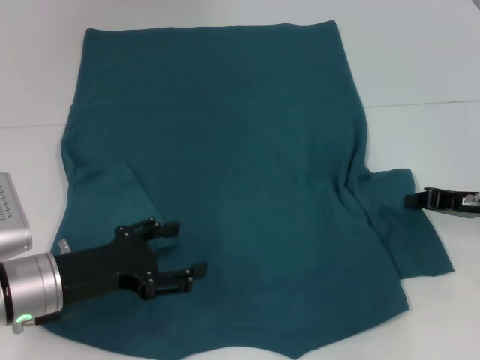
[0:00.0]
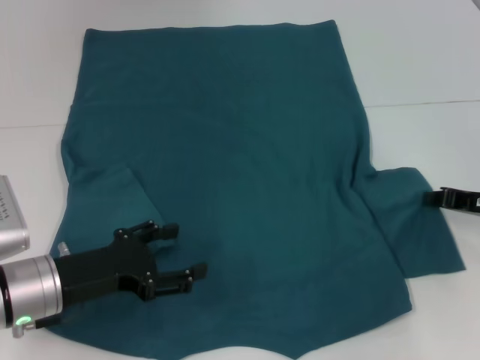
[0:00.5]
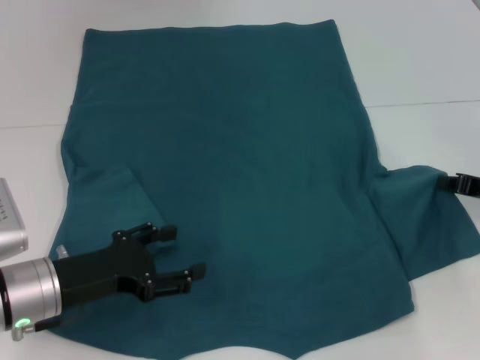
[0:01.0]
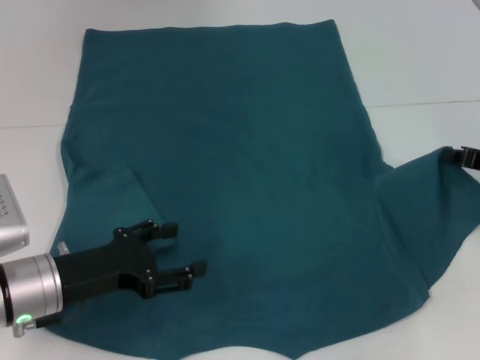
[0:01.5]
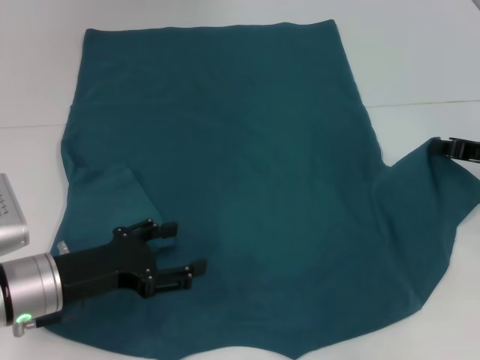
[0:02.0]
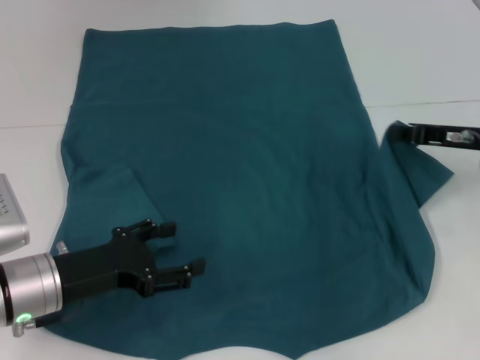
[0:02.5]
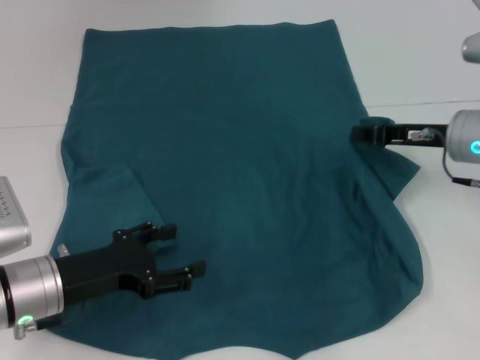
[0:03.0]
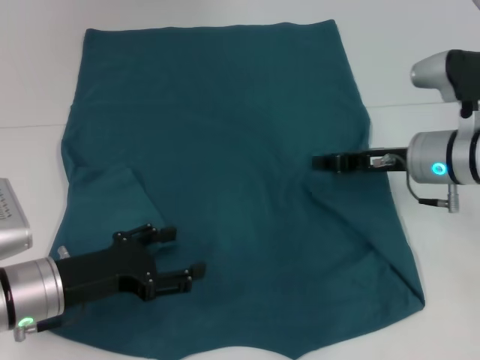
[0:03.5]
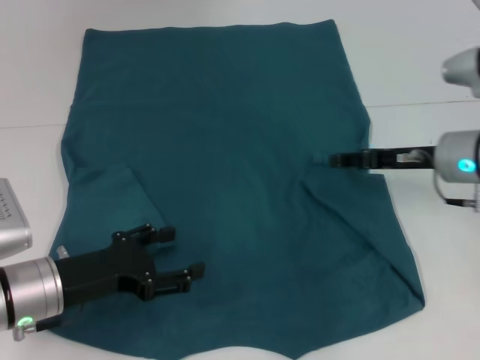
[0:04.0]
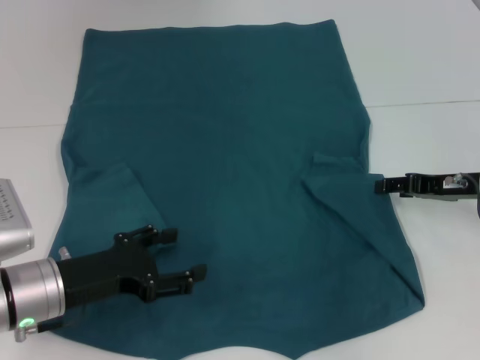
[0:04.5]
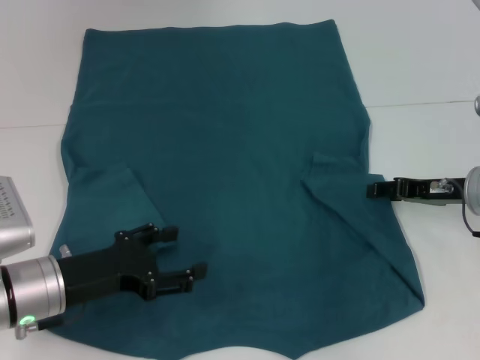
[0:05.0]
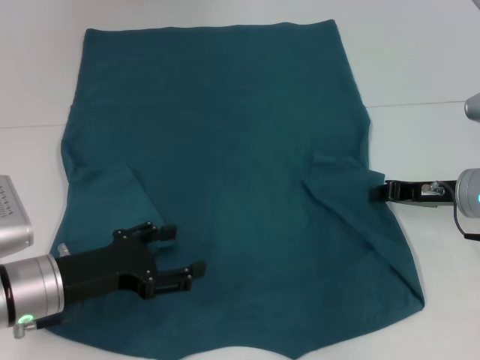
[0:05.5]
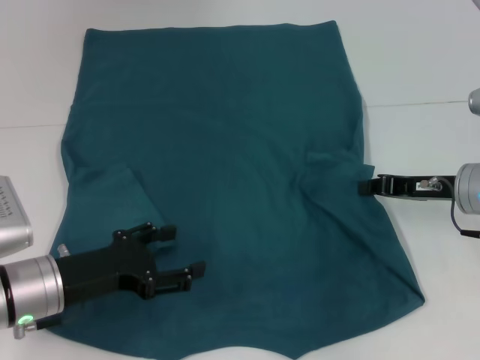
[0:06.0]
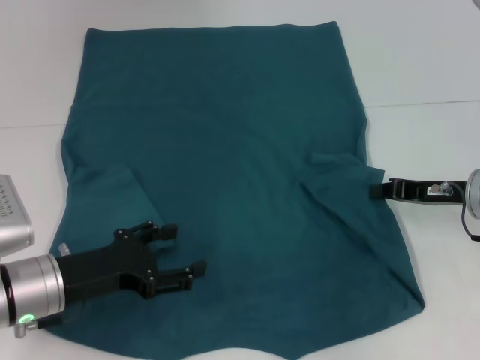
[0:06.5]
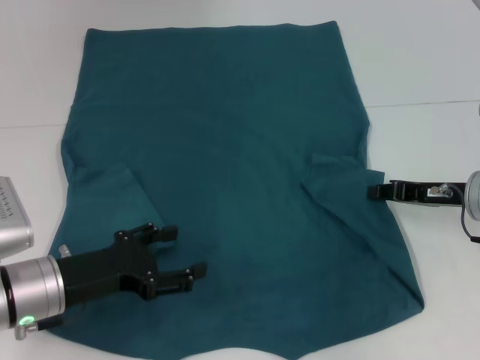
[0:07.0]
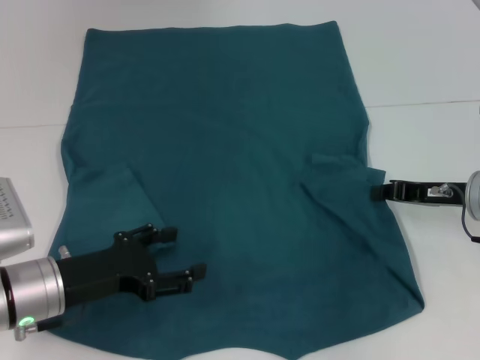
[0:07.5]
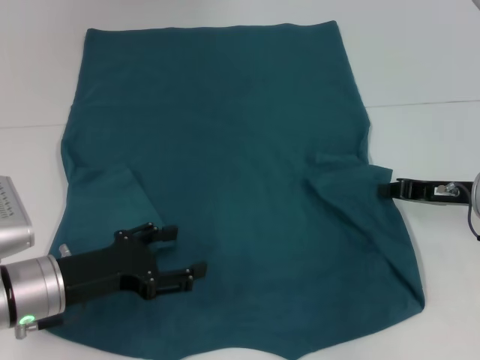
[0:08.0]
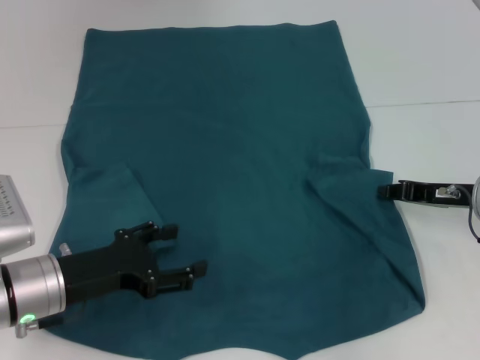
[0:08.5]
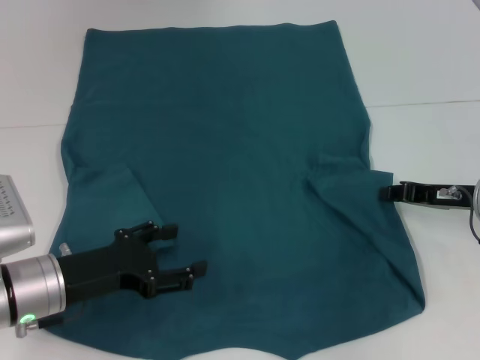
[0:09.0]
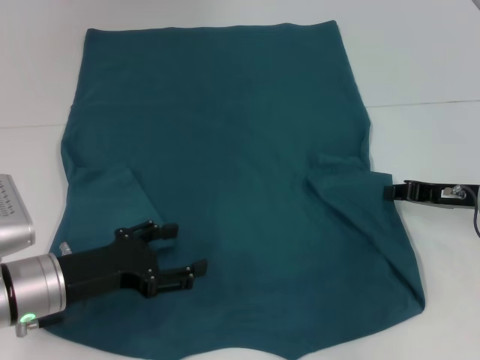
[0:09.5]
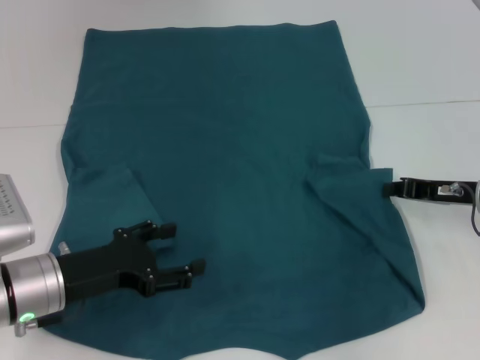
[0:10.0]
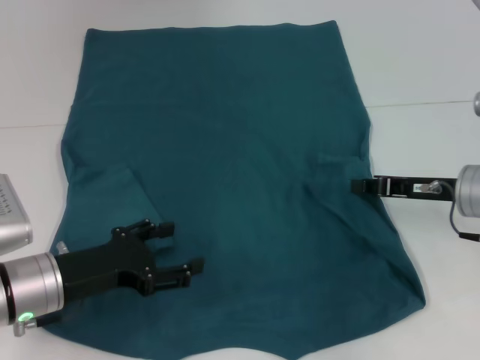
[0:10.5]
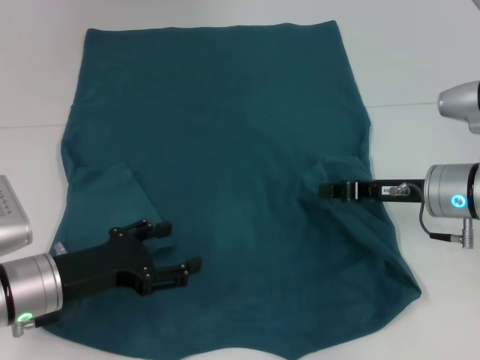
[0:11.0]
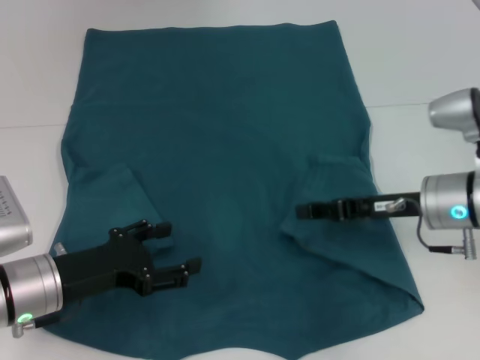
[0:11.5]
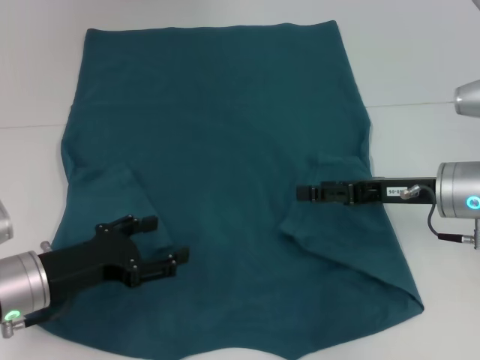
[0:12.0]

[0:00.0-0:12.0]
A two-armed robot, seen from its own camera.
Step, 0.0 to 11.5 s: Fold the bottom right sleeve to the right.
0.0 to 2.0 s: There are only small adjustments of the grippers.
2.0 to 4.0 s: The right gripper shifts some 10 cm to the left, and opens up.
4.0 to 6.0 s: The right gripper closes its fingers.
6.0 to 8.0 s: The grippers move only a little.
8.0 to 10.0 s: Both grippers stay about where they are.
10.0 to 12.0 s: The right gripper moves to the left, about 5 cm, and opens its fingers.

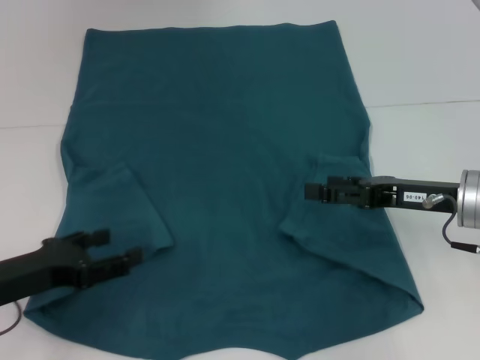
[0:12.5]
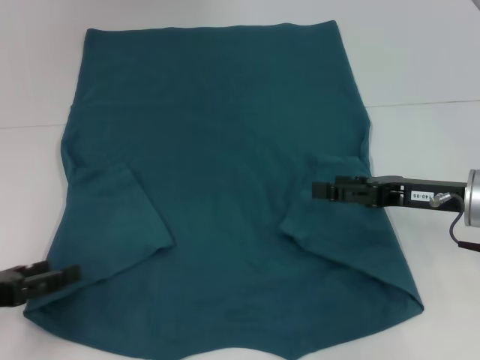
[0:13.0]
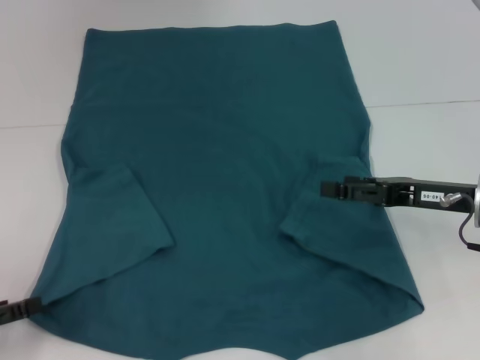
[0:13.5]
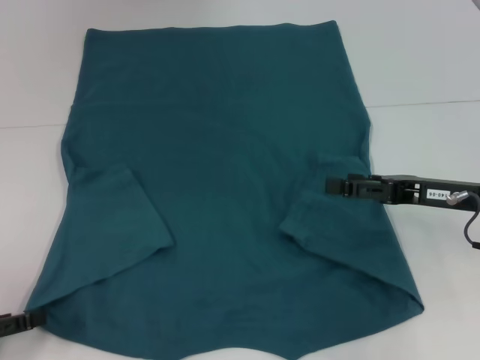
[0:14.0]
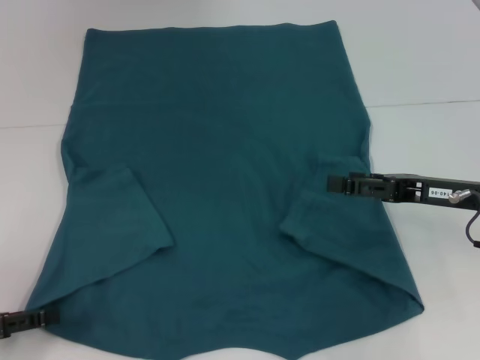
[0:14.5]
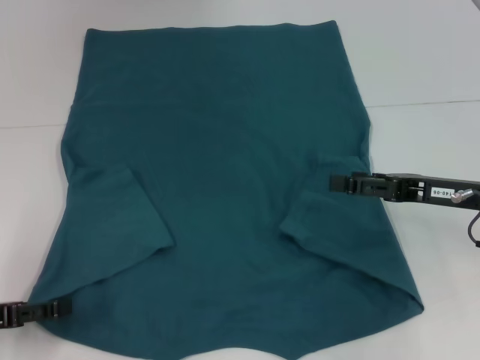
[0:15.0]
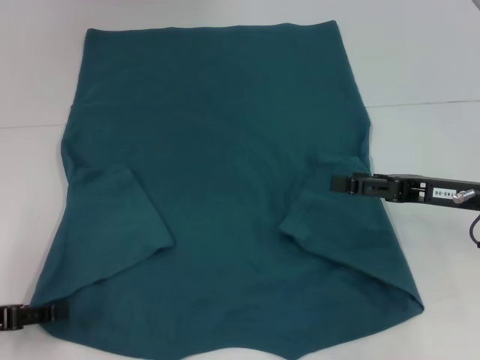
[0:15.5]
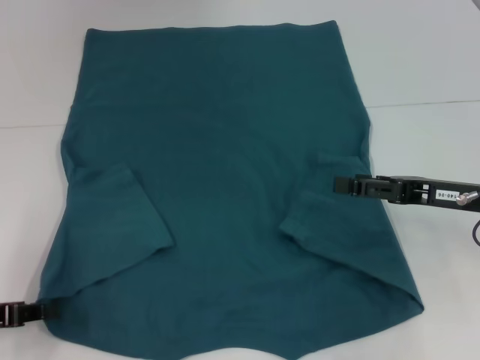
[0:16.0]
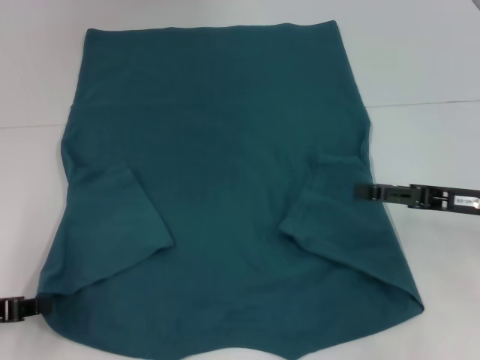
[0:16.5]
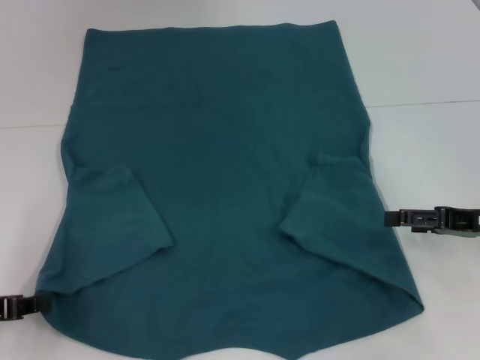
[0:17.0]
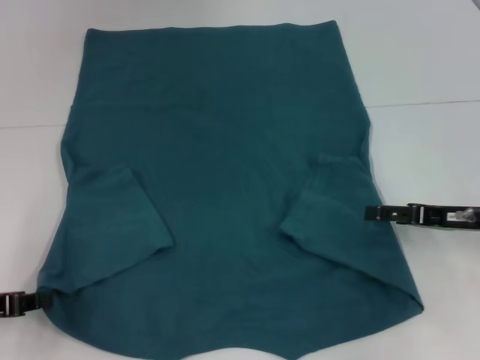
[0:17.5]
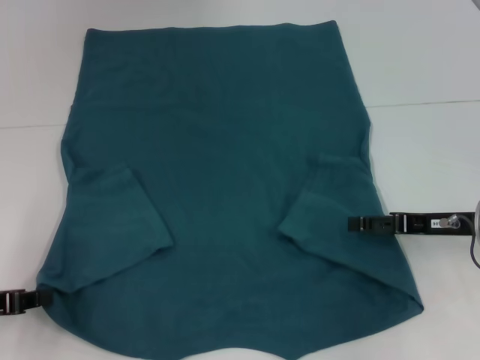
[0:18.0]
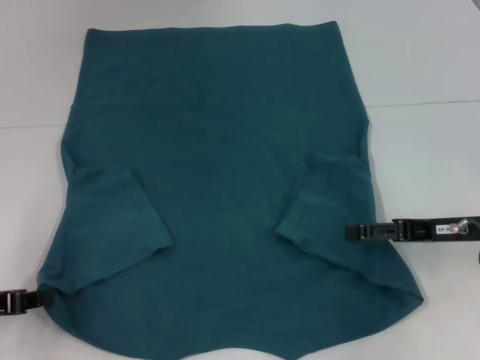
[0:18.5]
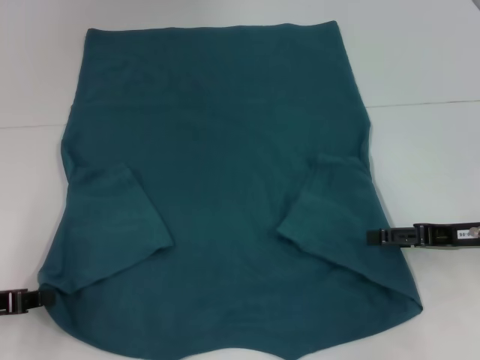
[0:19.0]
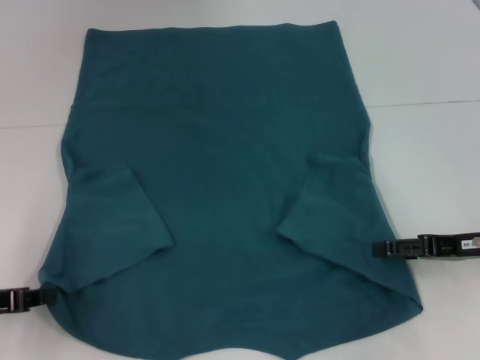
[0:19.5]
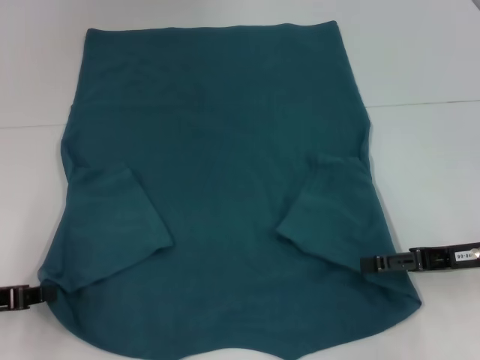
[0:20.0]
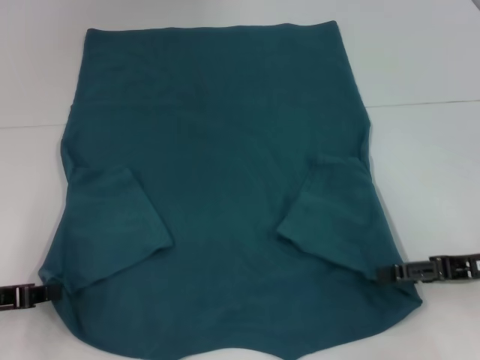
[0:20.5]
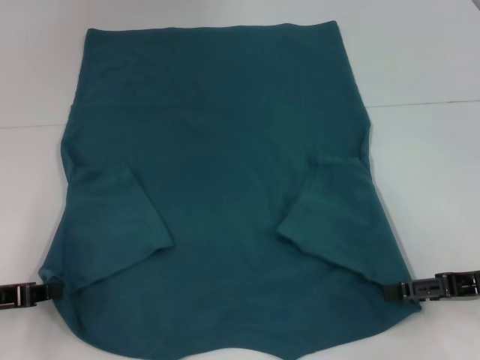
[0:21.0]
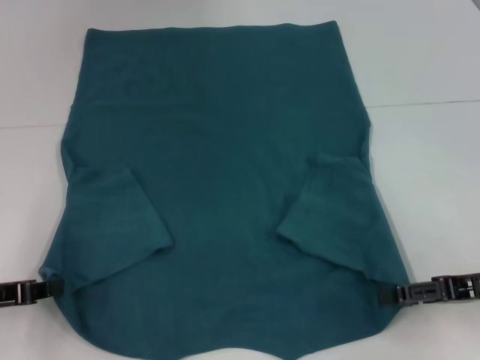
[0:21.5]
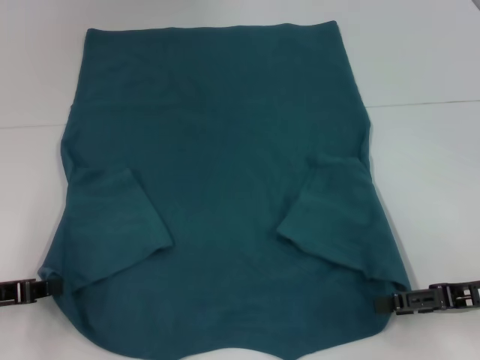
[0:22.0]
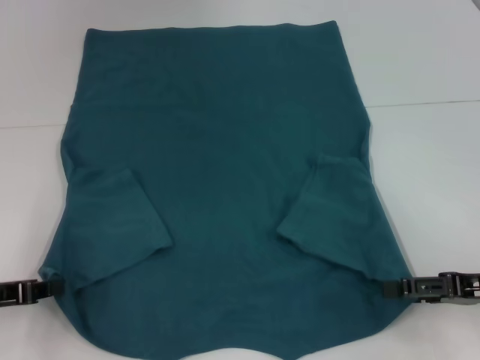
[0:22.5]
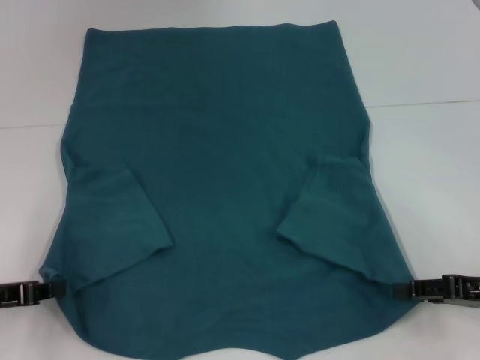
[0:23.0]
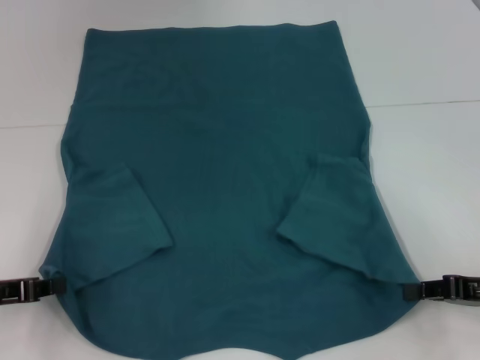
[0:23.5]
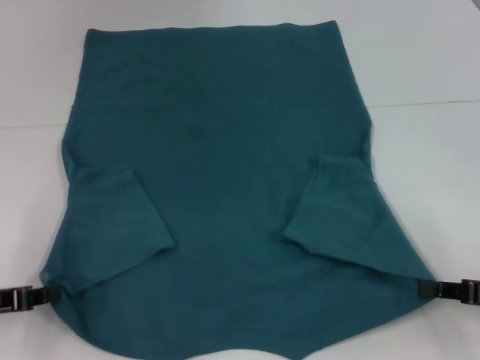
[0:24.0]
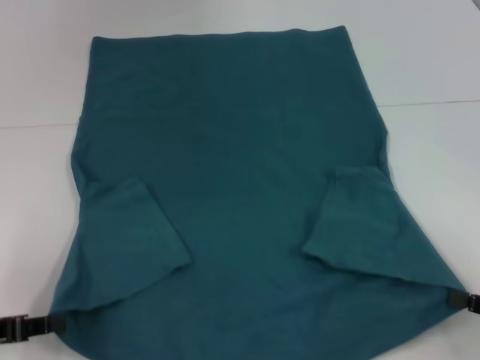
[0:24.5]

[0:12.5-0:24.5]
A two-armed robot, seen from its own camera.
Step, 12.5 to 16.0 s: Grab the bottom left corner with your left hand.
Step, 16.5 to 23.5 s: Grab the bottom right corner with your right hand.
12.5 to 14.5 s: The left gripper moves to the left, approximately 5 cm.
14.5 to 16.5 s: The left gripper closes its fingers.
16.5 to 18.5 s: The grippers stay close to where they were, moving slightly.
18.5 to 20.5 s: The grippers make only small movements.
20.5 to 22.5 s: The grippers make only small movements.
22.5 to 24.5 s: The right gripper shifts some 5 cm backward, and closes.

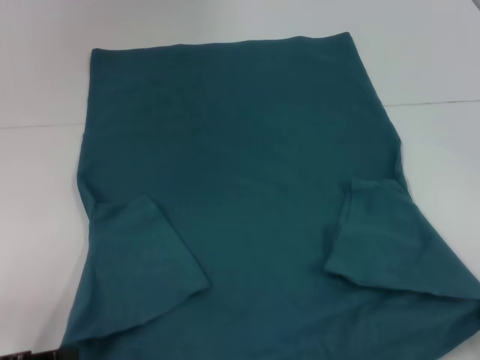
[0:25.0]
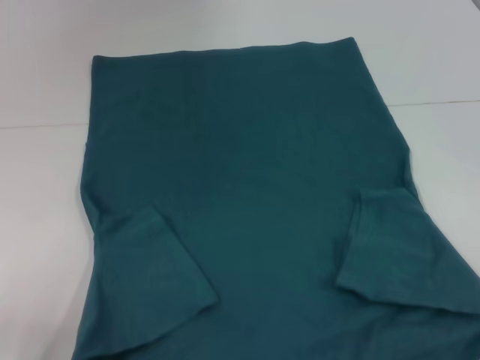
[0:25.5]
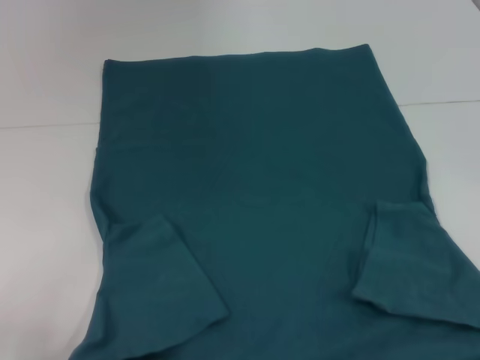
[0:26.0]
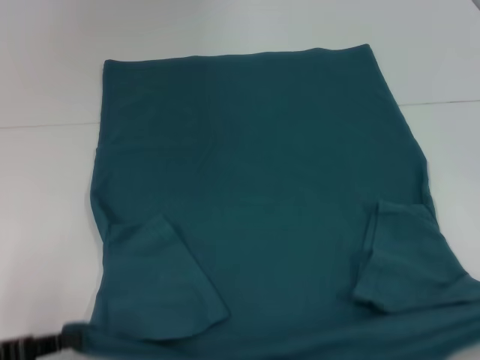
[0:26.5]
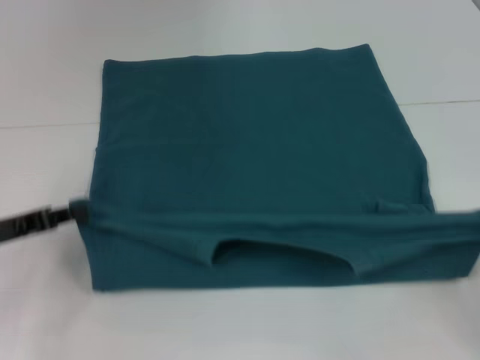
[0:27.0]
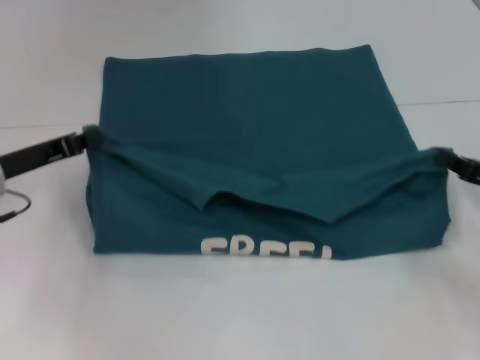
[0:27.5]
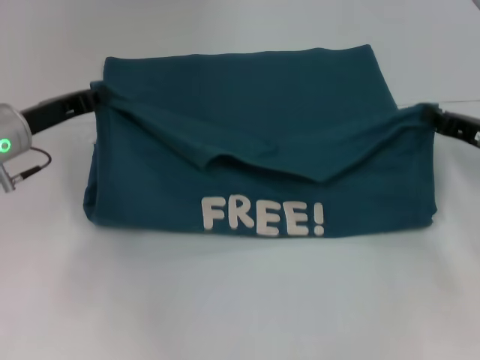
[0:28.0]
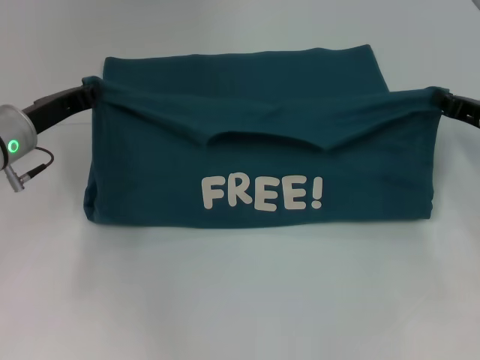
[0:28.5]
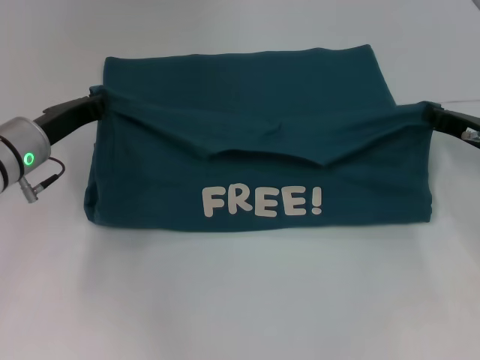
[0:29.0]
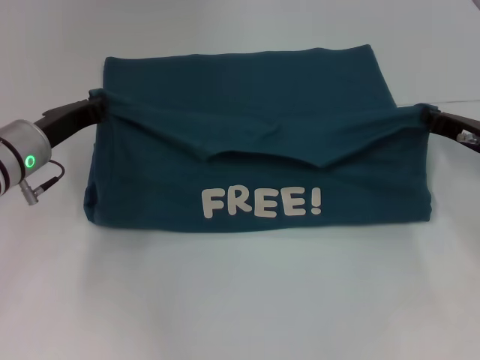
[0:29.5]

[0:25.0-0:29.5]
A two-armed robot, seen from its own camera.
25.0 to 27.0 s: The left gripper is displaced forward by approximately 10 cm. Meanwhile the right gripper shifts approximately 5 cm forward.
27.0 to 29.5 s: The left gripper travels forward and to the right by about 15 cm; the right gripper shifts about 20 cm forward and to the left.
